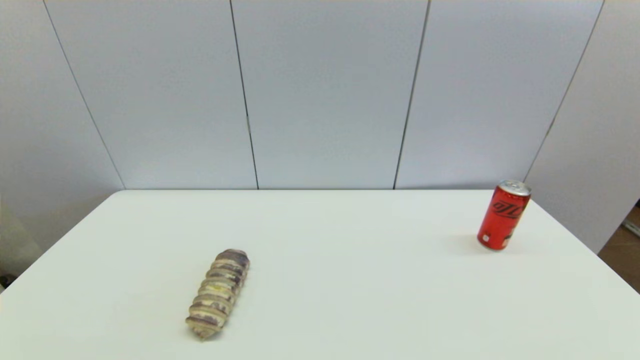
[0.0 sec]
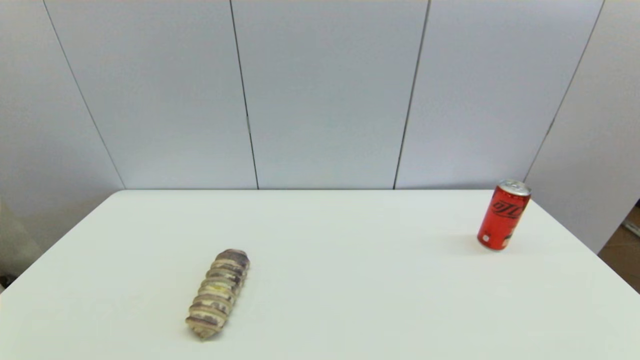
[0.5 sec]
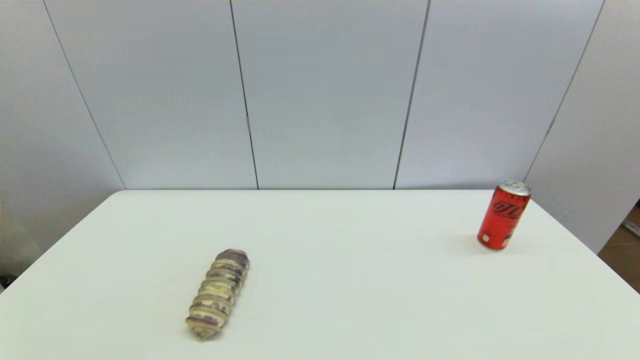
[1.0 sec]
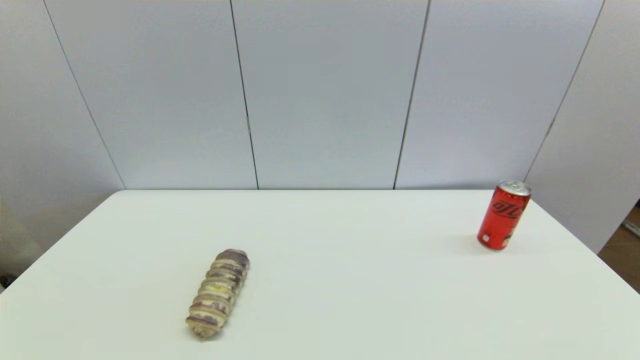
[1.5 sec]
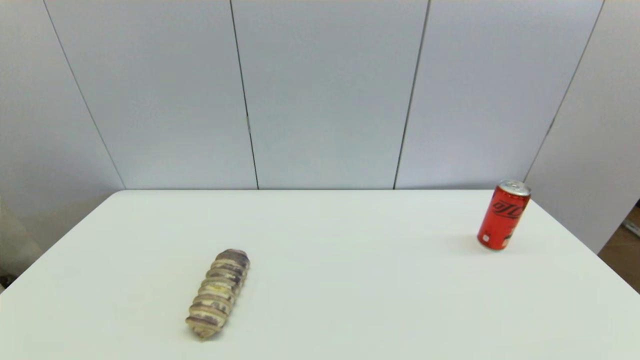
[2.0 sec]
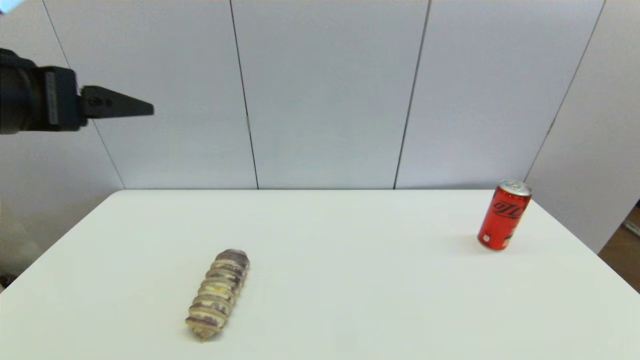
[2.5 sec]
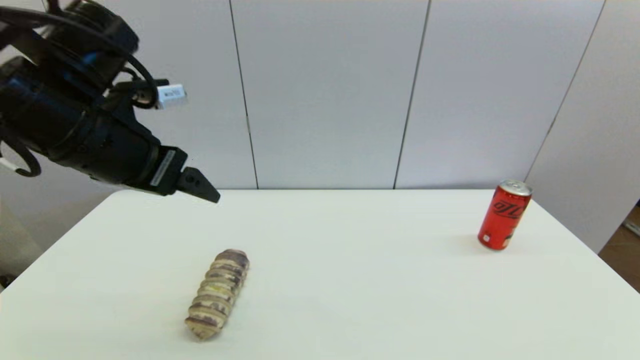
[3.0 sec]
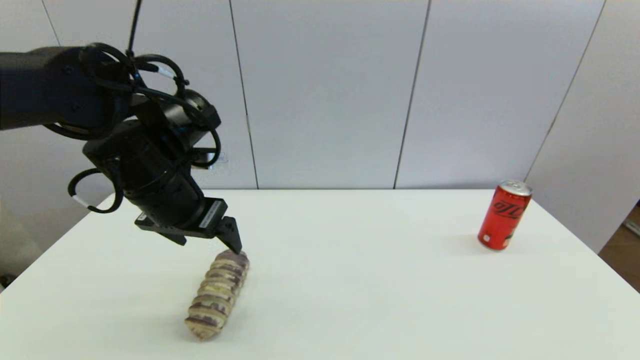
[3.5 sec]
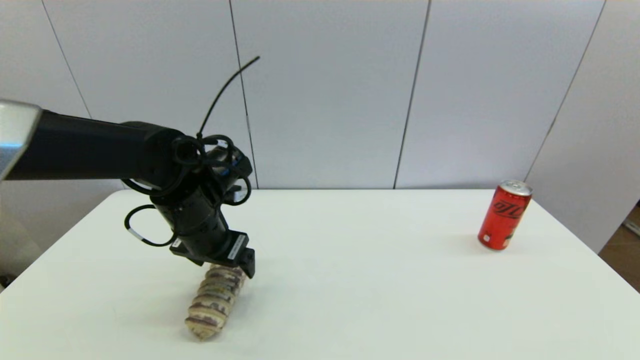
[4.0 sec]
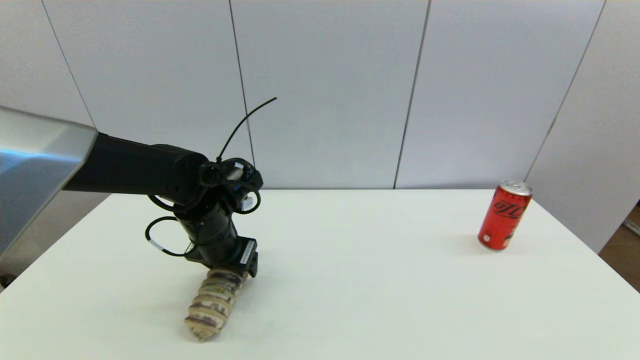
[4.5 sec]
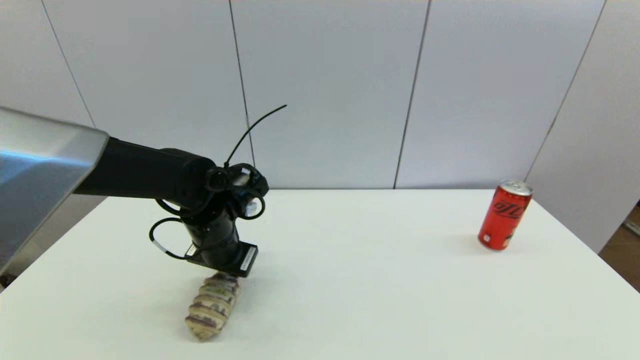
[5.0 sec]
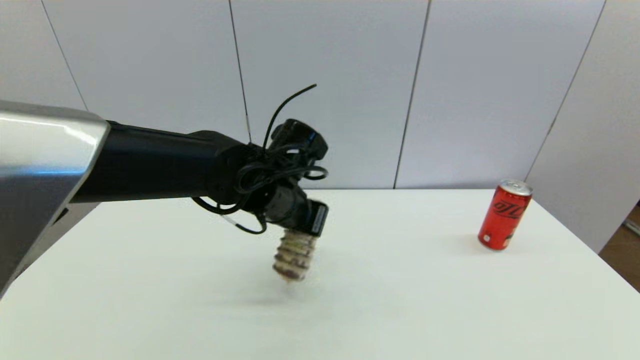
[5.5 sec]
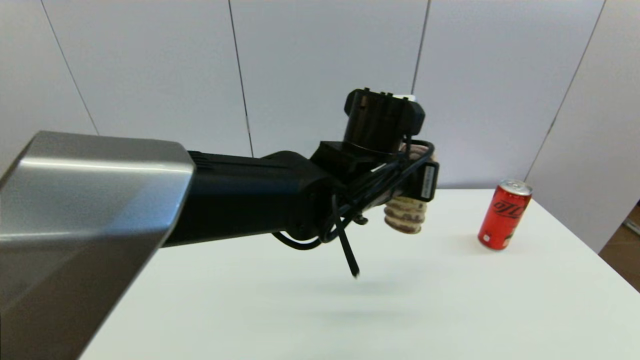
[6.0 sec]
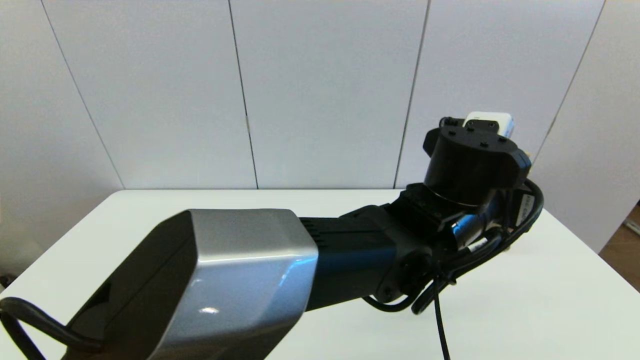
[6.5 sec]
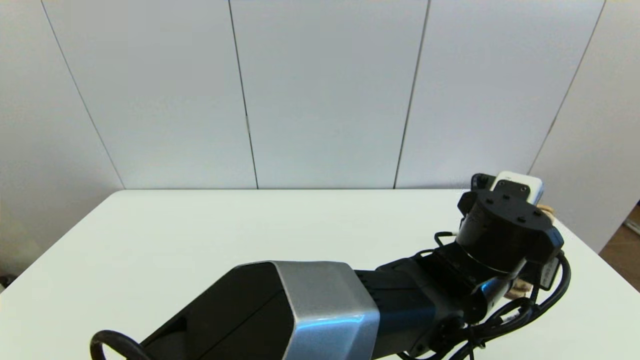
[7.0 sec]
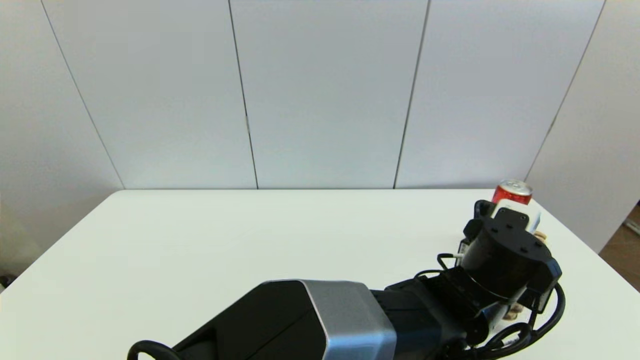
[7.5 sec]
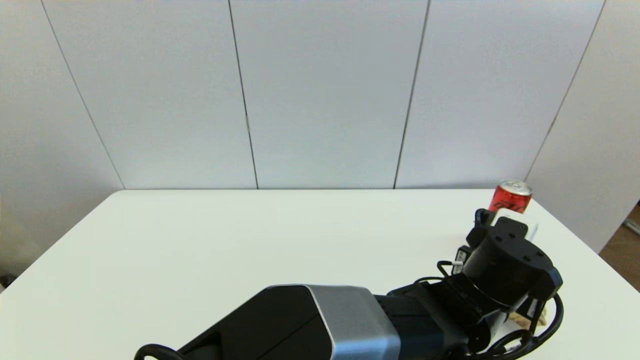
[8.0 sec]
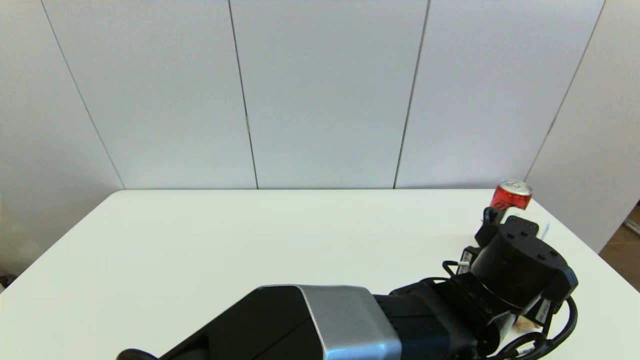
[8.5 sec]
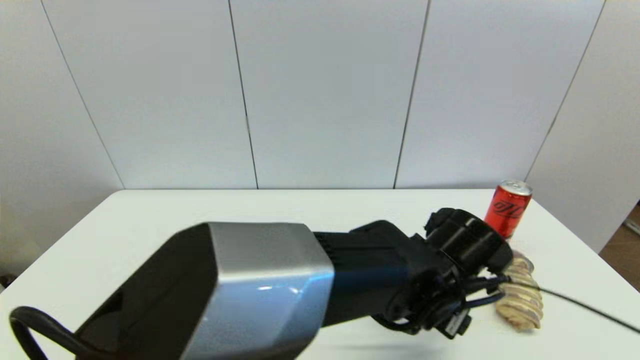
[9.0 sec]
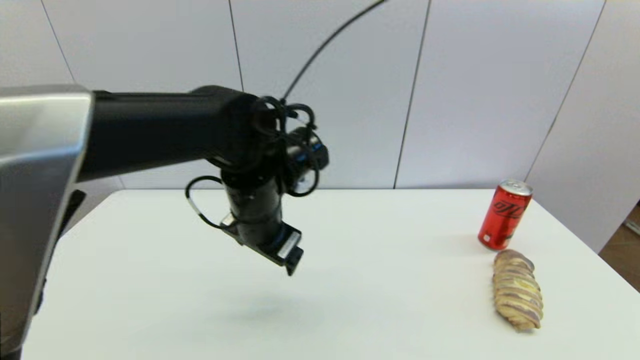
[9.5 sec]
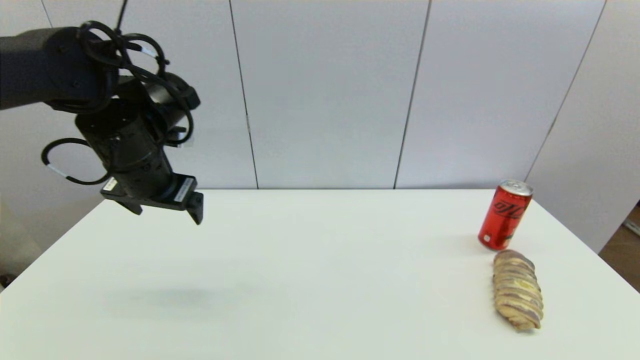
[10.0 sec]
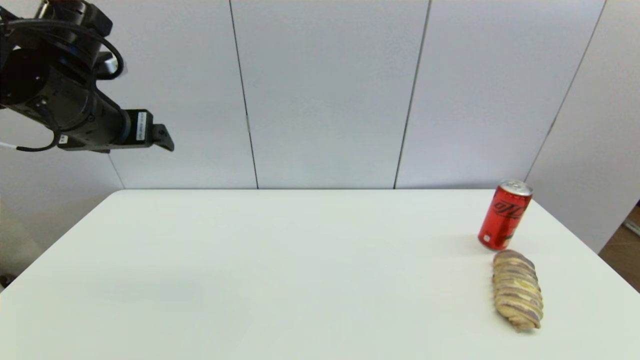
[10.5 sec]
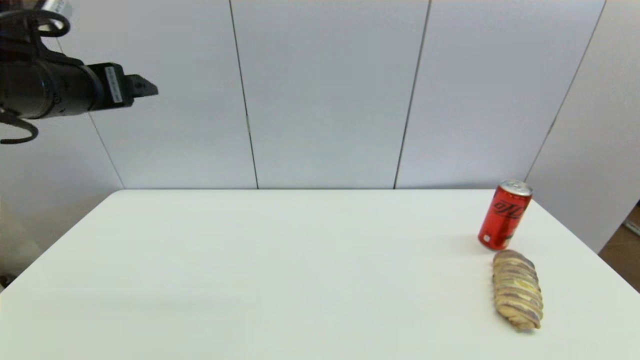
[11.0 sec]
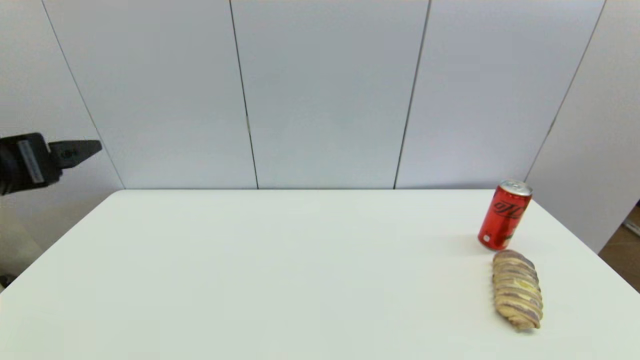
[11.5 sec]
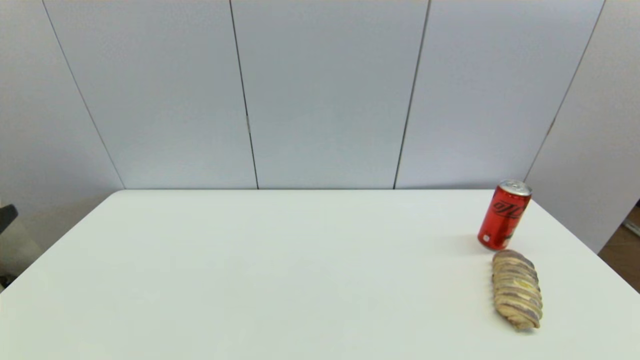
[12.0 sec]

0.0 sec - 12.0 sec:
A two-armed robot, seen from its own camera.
Step, 2.5 sec - 5.0 sec: Grasp the long bread with left gripper.
Step, 5.5 sec - 8.0 sec: Place the long bread on the table with left gripper.
2.0 sec - 4.0 sec: The left gripper is displaced forward, downward and to the right by roughly 35 cm.
4.0 sec - 6.0 sec: The left gripper heads to the right, covering approximately 25 cm, and closes up.
6.0 sec - 8.0 sec: The left gripper goes approximately 20 cm downward, to the right and backward, and opens its fingers.
8.0 sec - 10.0 sec: The left gripper travels to the left by about 40 cm, and opens up.
10.0 sec - 12.0 sec: The left gripper is displaced backward by roughly 25 cm.

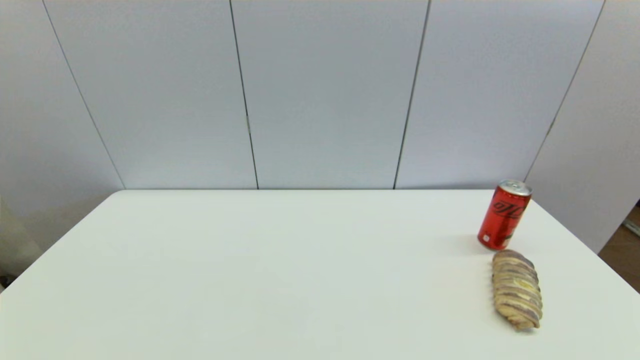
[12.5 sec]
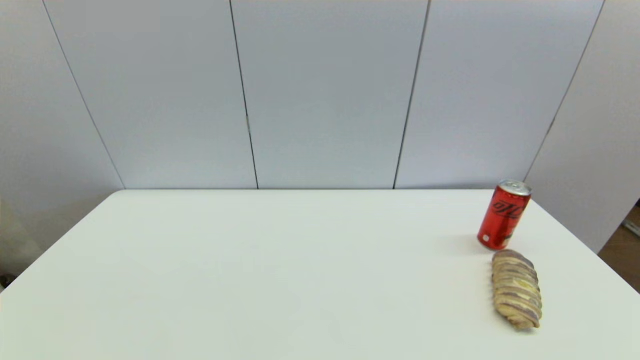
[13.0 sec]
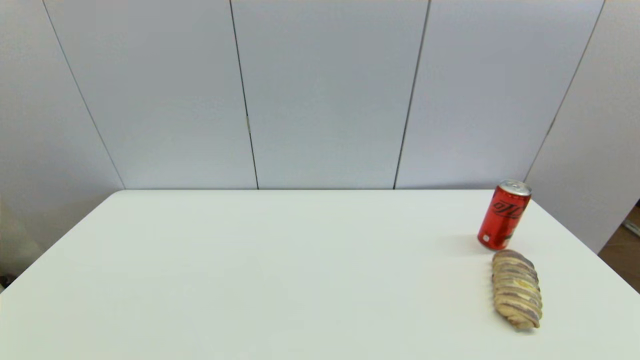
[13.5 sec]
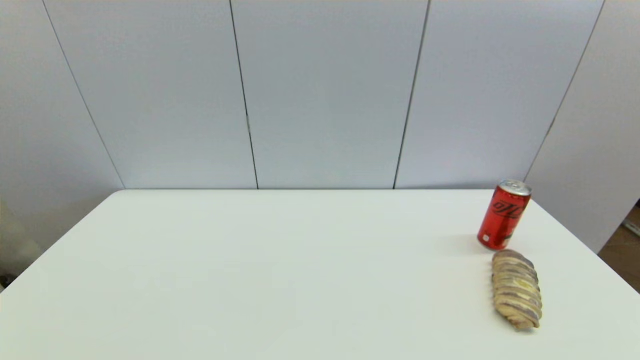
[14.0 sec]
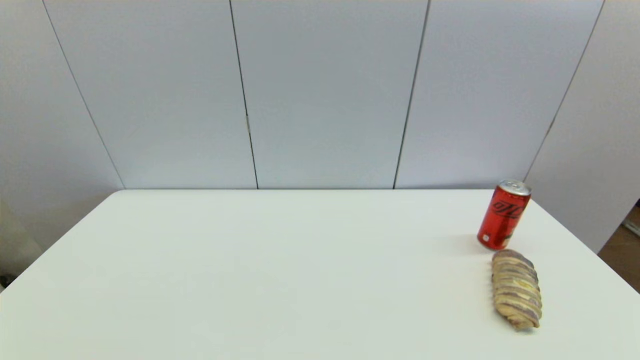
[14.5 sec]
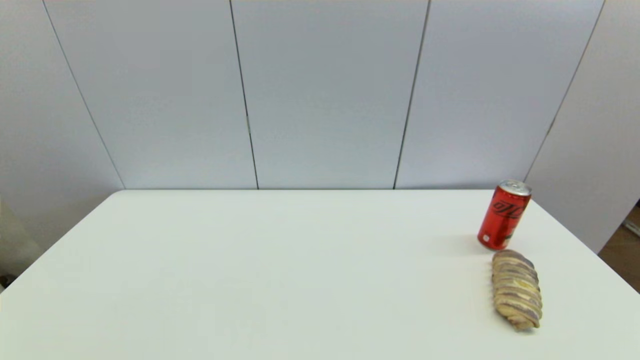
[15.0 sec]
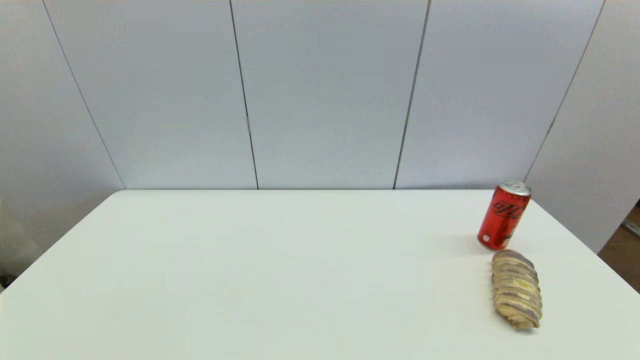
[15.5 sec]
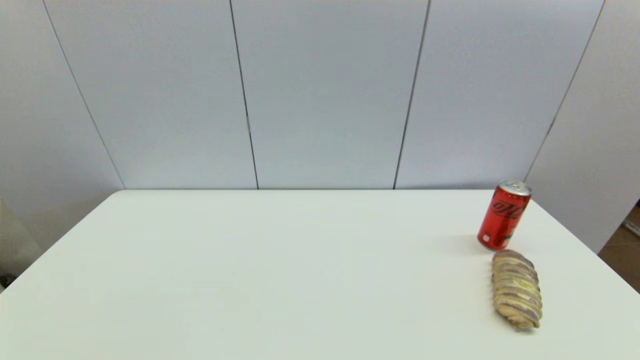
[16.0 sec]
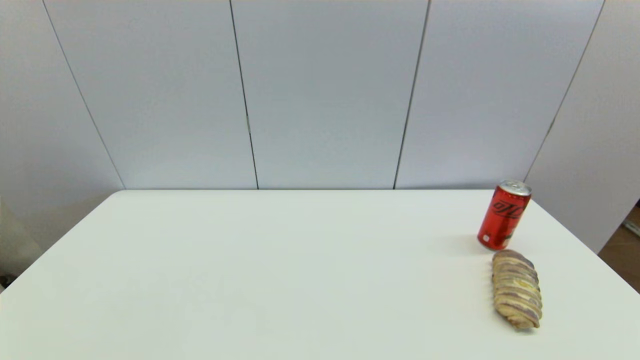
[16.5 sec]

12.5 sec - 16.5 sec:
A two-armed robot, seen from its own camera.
14.5 sec - 16.5 sec: Both grippers stay put.
